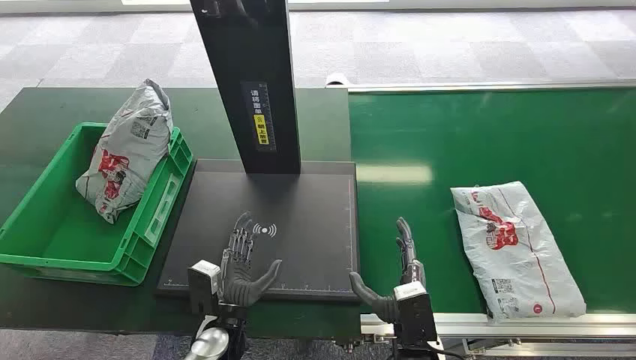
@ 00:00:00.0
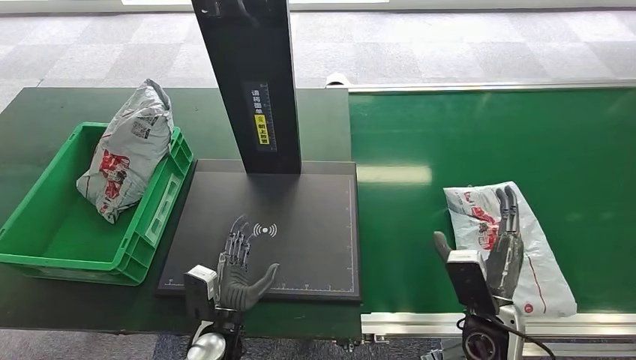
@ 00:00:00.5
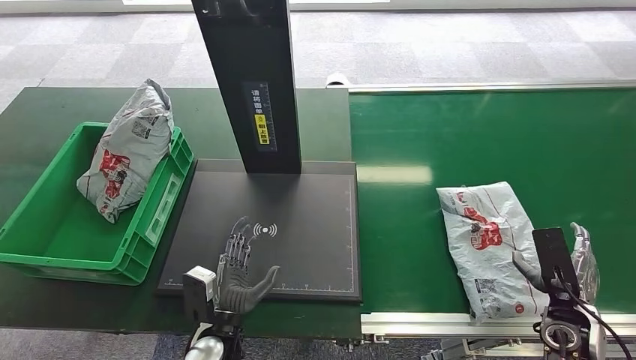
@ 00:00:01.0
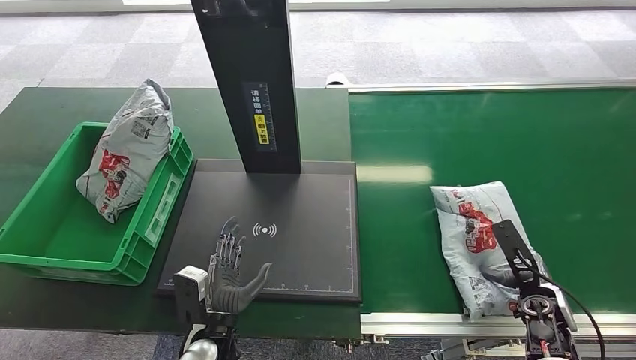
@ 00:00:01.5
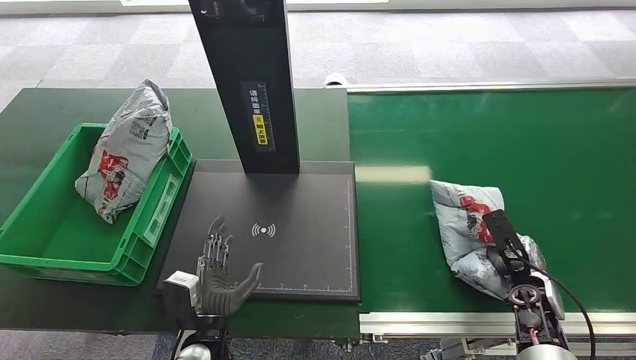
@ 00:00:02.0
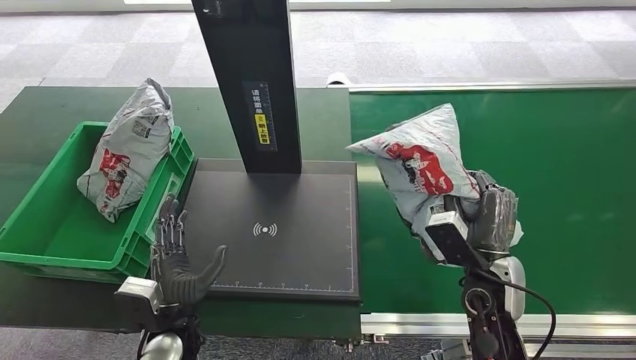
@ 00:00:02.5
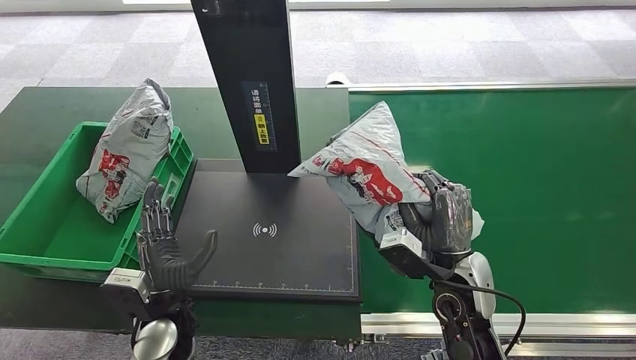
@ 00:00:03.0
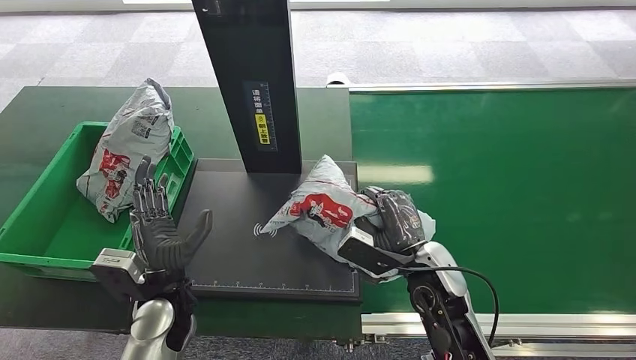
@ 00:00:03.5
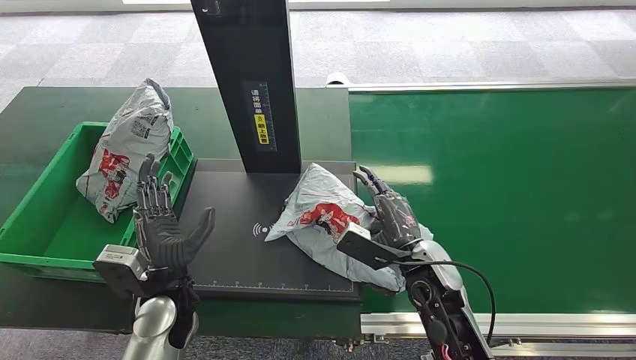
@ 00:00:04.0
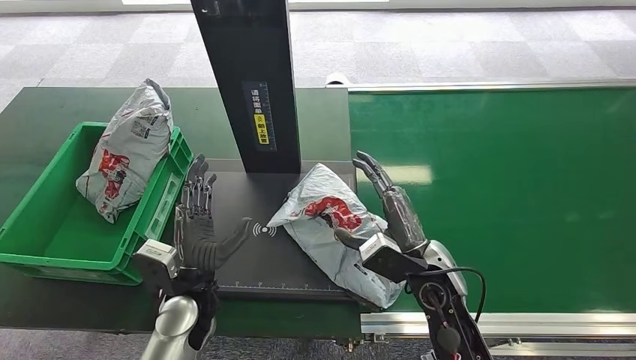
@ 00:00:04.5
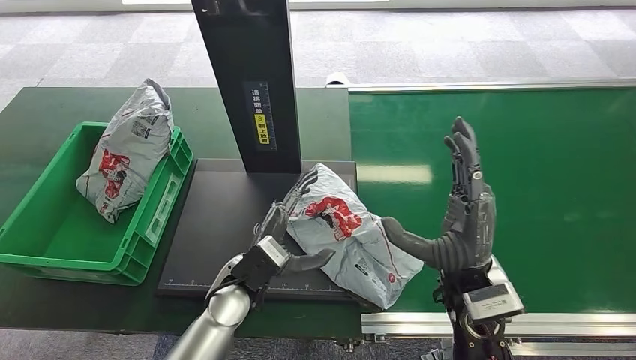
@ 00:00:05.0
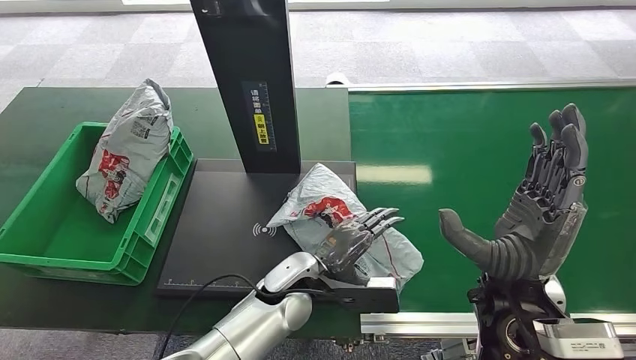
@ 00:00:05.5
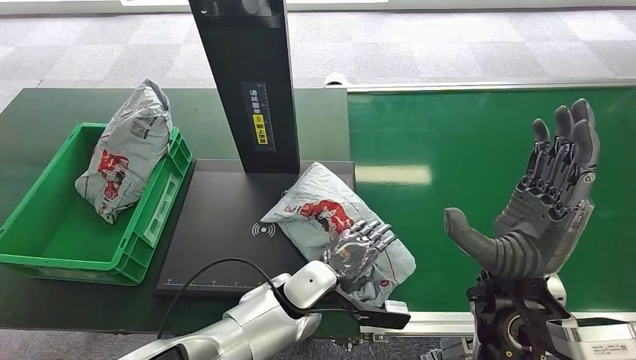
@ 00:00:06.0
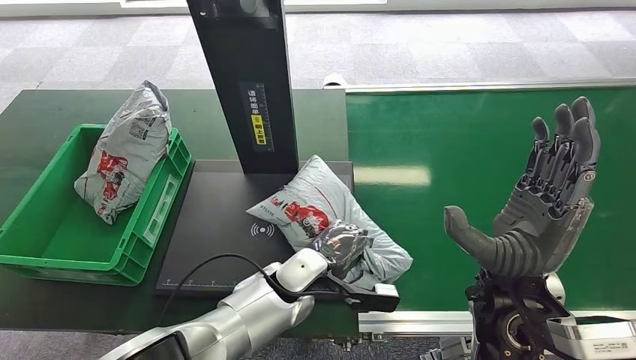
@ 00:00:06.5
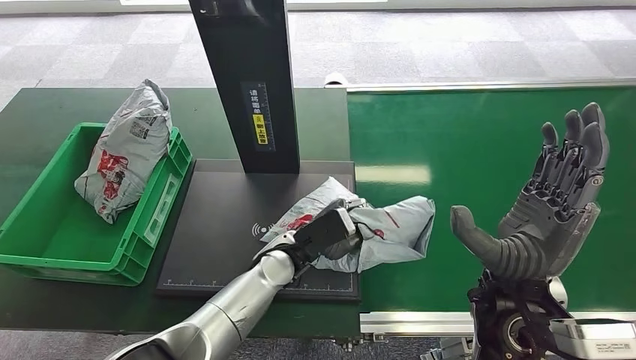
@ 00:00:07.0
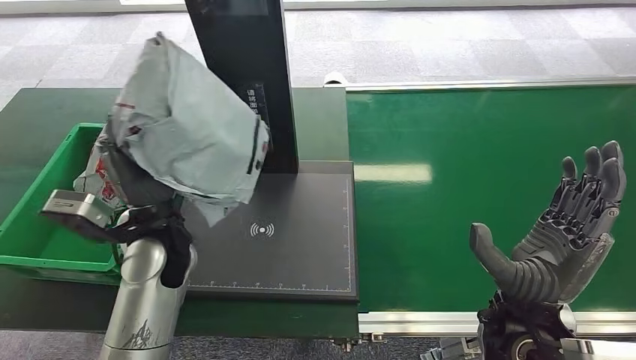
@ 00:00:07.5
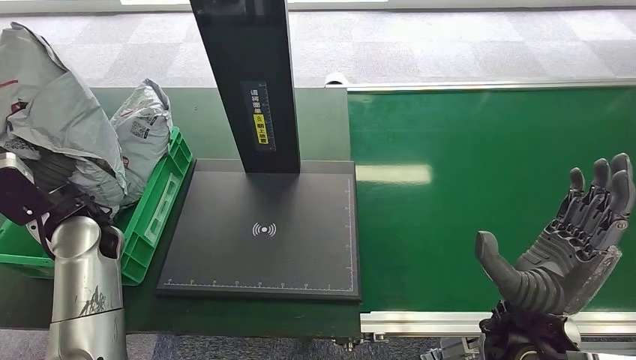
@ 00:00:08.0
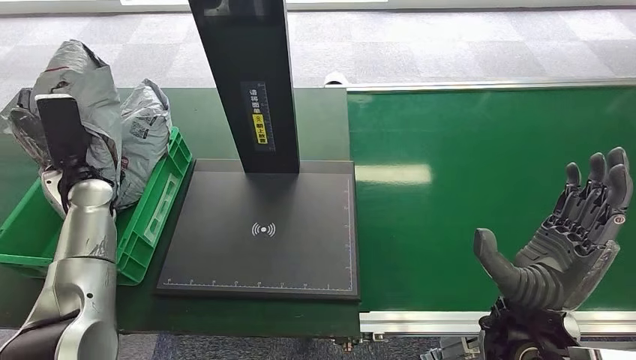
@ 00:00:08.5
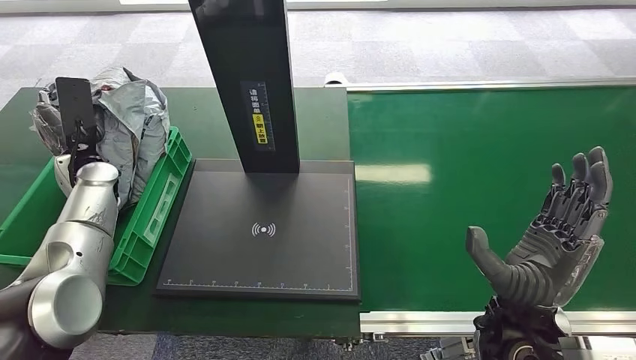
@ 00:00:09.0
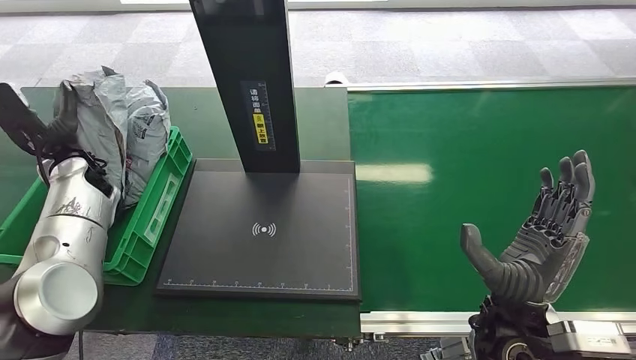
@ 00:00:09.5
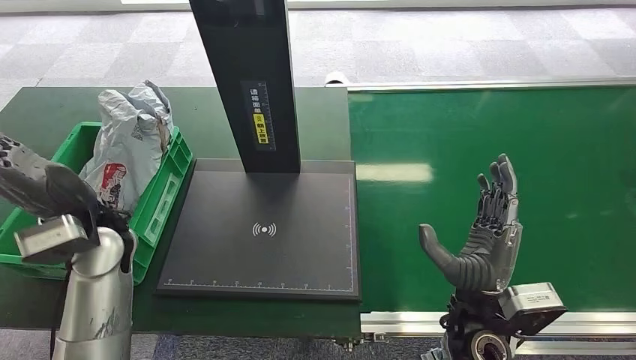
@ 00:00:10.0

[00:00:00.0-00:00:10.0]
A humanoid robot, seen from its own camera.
Step, 00:00:00.0 to 00:00:02.5: Pick up the package from the conveyor belt.
Step, 00:00:03.0 to 00:00:04.5: Place the package onto the inbound machine.
Step, 00:00:05.0 to 00:00:07.5: Pick up the package from the inbound machine.
Step, 00:00:08.0 to 00:00:10.0: Place the package into the parcel locker.
00:00:02.0 to 00:00:04.0: The left hand travels upward, forward and to the left by roughly 10 cm, while the right hand moves to the left, approximately 20 cm.
00:00:08.0 to 00:00:10.0: The right hand shifts by some 5 cm; the left hand goes forward and returns, about 10 cm each way.
